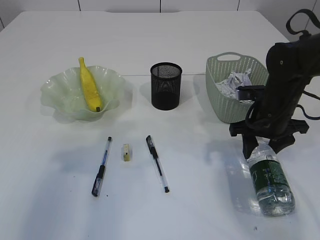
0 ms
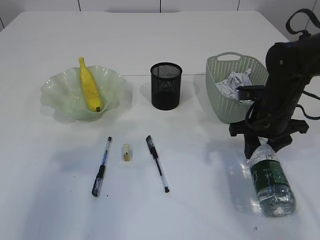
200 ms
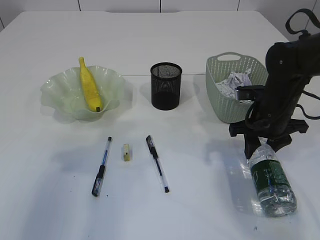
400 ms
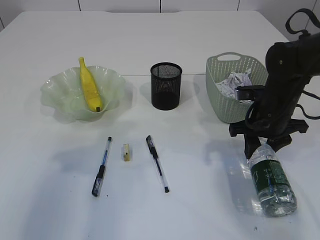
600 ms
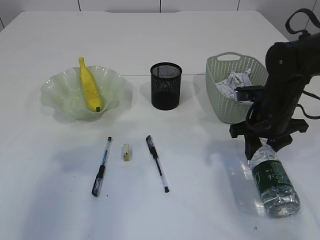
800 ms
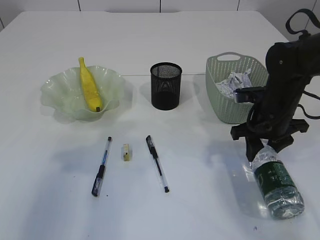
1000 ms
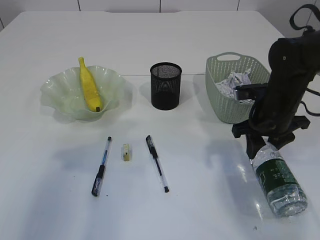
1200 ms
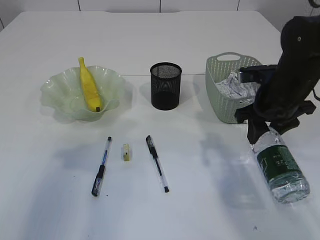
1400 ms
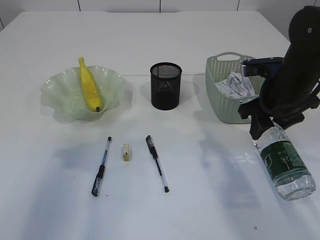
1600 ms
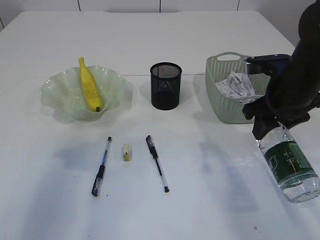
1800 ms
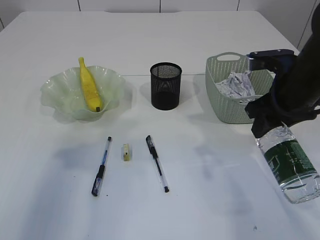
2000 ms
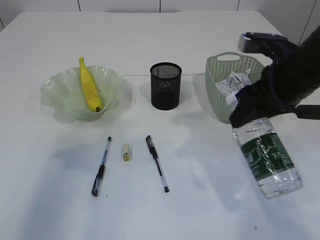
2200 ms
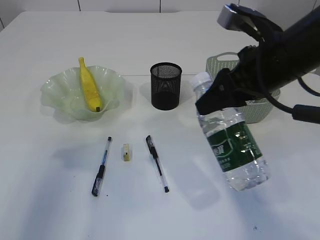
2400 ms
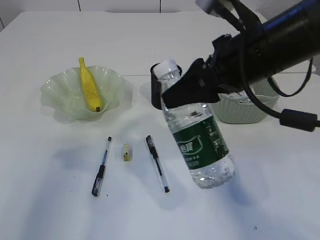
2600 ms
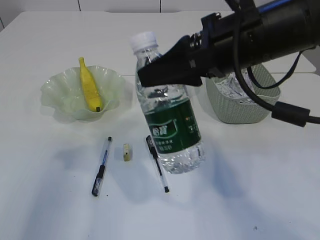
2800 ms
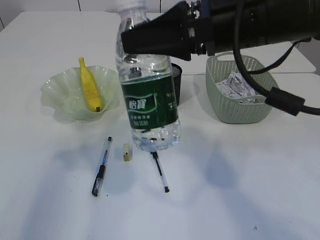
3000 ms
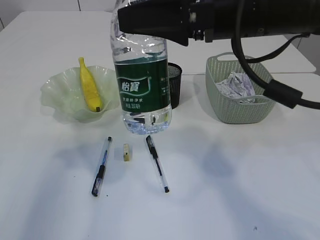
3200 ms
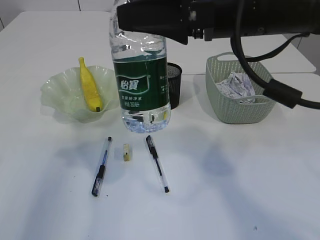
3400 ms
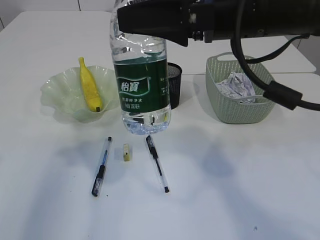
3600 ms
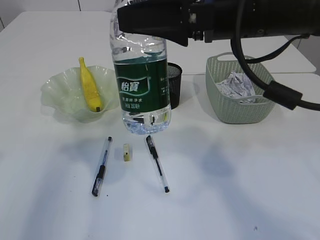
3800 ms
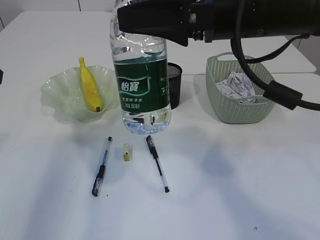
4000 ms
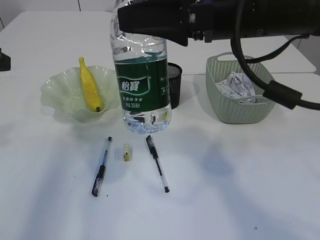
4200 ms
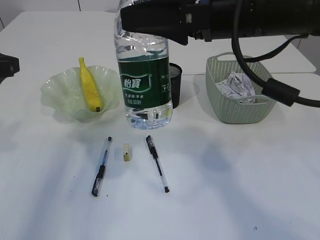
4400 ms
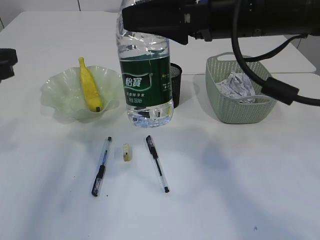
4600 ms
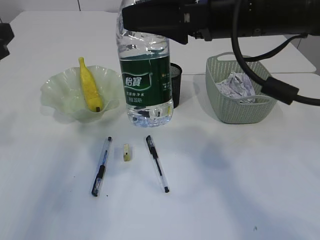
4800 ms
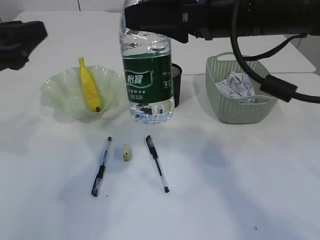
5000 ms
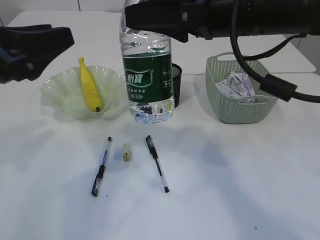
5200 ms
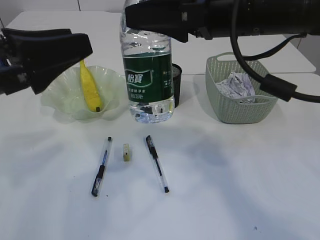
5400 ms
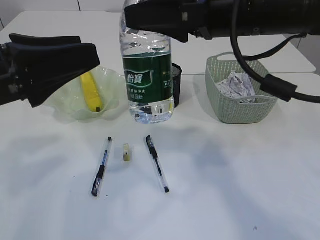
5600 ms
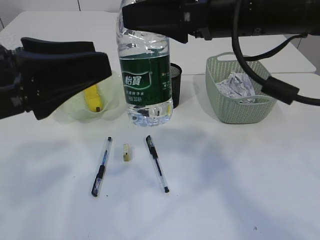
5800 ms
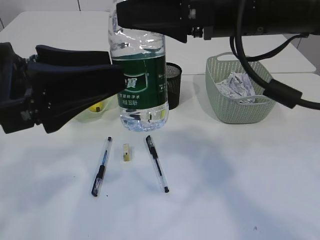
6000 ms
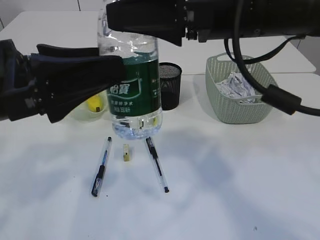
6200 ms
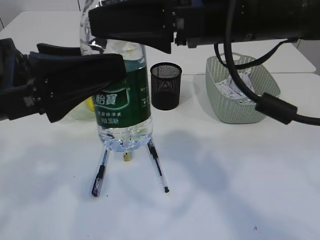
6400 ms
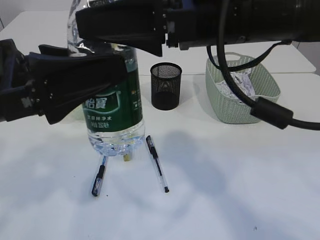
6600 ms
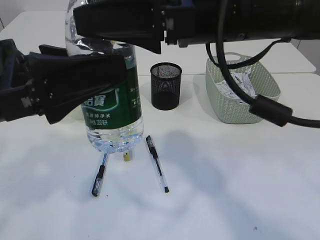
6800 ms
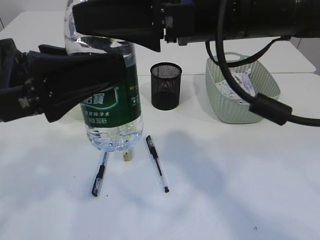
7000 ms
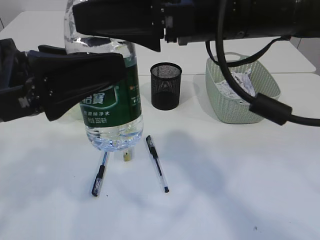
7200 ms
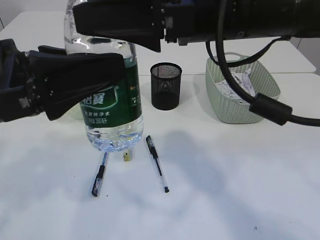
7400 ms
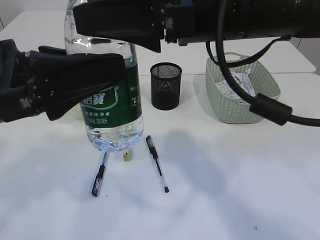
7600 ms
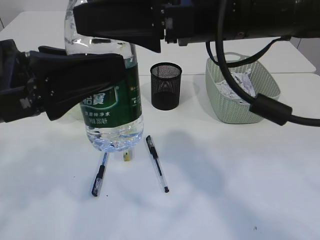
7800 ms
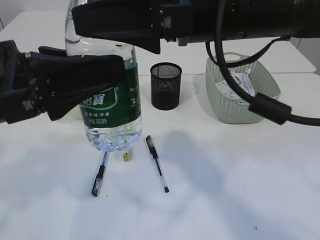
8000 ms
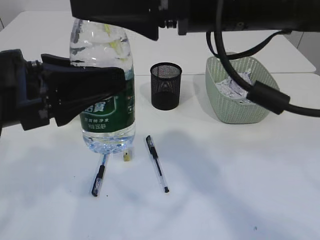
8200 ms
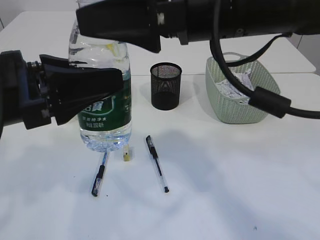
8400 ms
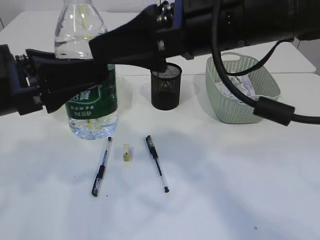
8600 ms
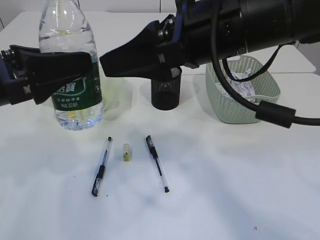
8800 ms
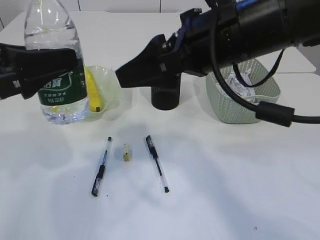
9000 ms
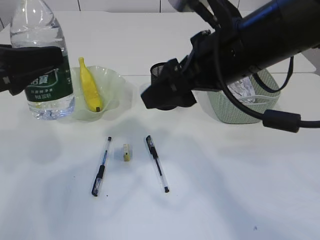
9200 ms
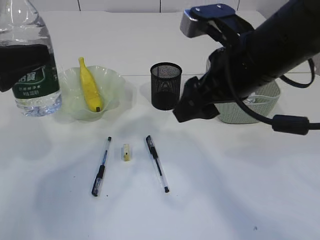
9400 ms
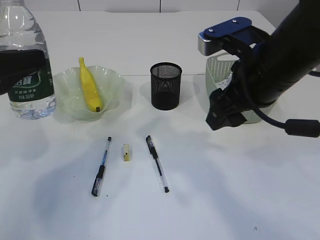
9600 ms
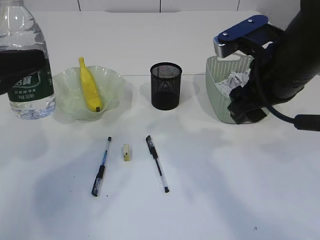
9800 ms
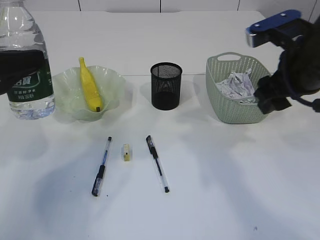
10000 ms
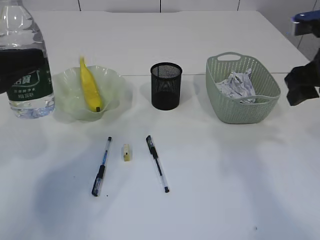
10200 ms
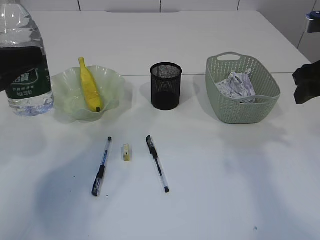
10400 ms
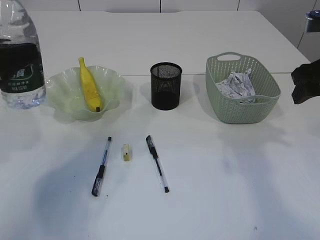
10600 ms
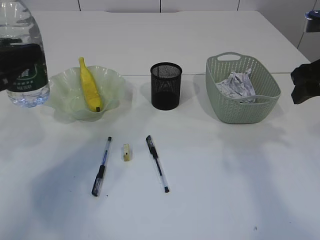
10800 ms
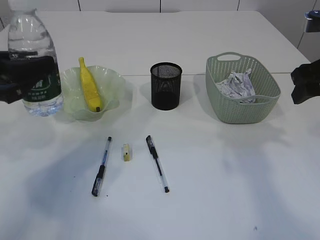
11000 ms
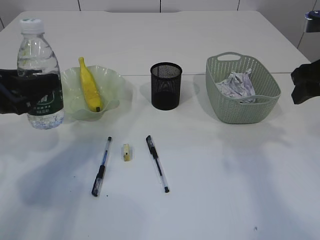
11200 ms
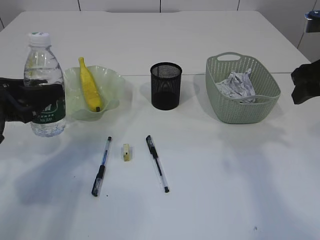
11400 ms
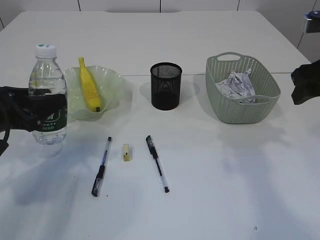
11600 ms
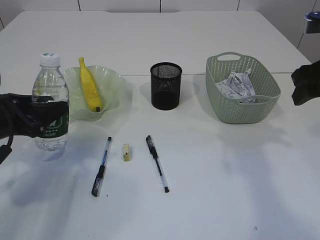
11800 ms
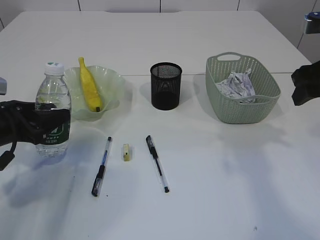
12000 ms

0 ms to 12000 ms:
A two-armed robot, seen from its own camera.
Step, 2000 ms to 8600 ms: transfer the bottle to the left arm.
0 ms to 1600 ms: The right gripper travels upward by roughly 5 cm.
1600 ms to 3000 ms: The right gripper heads upward, to the left and backward, covering some 20 cm.
4400 ms to 6000 ms: The left gripper is displaced to the right and backward by roughly 10 cm, and opens up.
6000 ms to 7600 ms: The left gripper closes.
7600 ms to 9000 ms: The left gripper is displaced to the left by approximately 5 cm. Meanwhile the right gripper opens up.
9000 ms to 10400 ms: The left gripper shifts by approximately 5 cm. The right gripper is displaced to the right by roughly 20 cm.
10400 ms to 12000 ms: The left gripper shifts about 15 cm downward and forward.

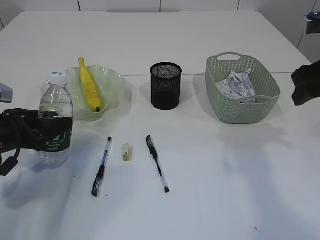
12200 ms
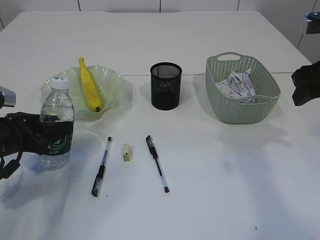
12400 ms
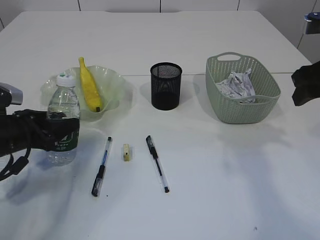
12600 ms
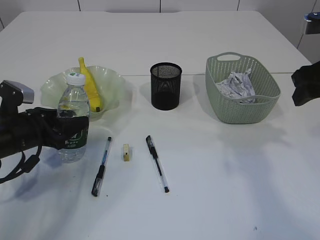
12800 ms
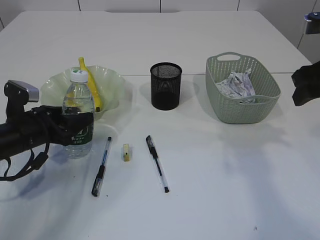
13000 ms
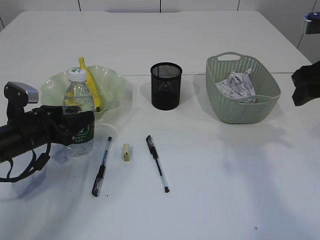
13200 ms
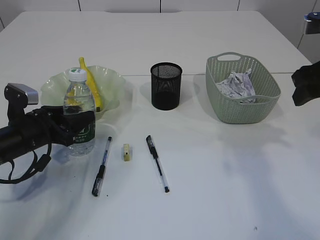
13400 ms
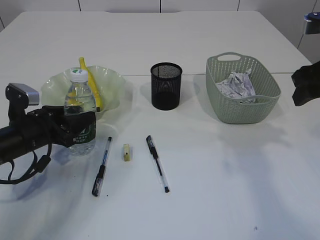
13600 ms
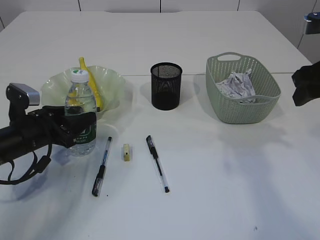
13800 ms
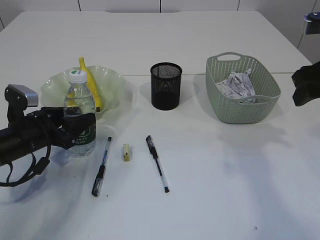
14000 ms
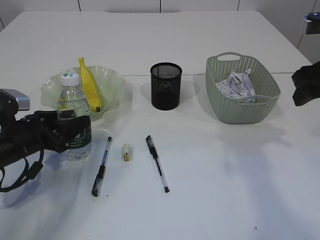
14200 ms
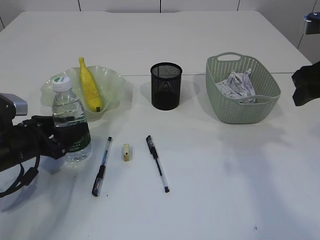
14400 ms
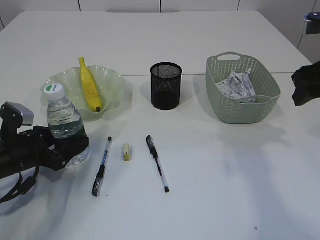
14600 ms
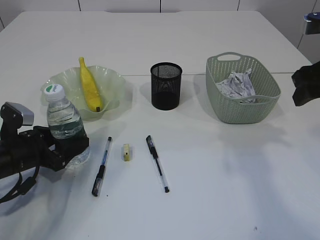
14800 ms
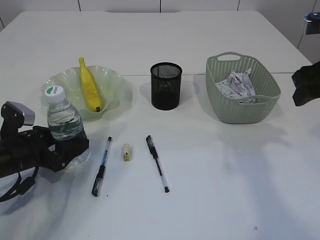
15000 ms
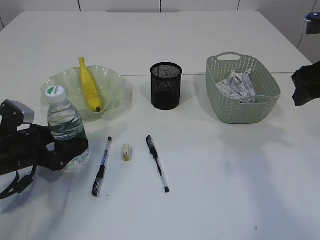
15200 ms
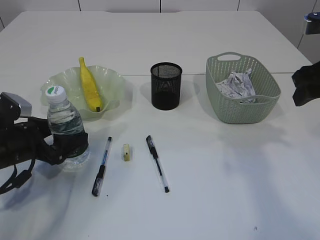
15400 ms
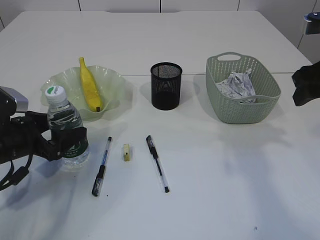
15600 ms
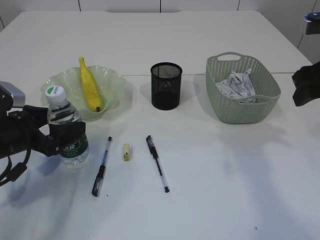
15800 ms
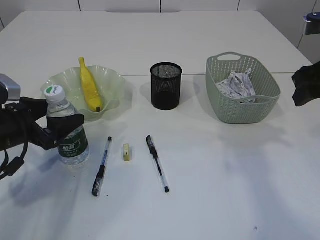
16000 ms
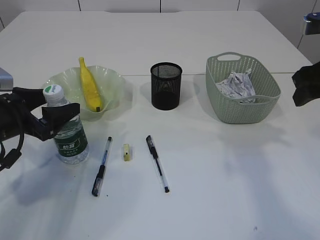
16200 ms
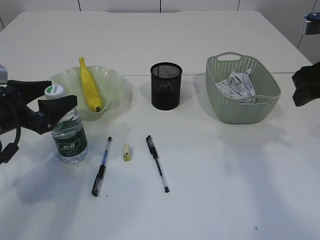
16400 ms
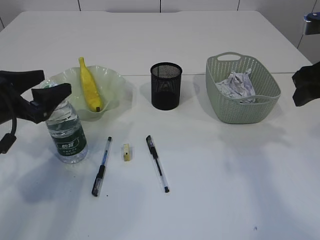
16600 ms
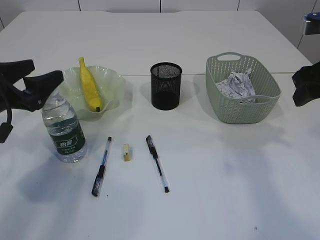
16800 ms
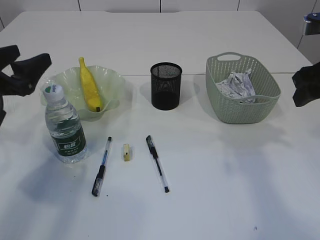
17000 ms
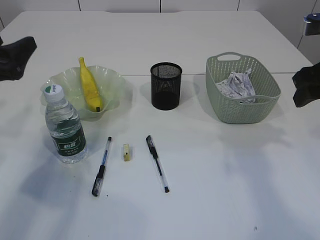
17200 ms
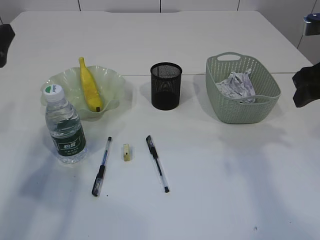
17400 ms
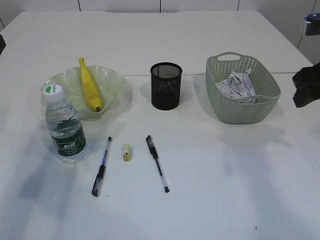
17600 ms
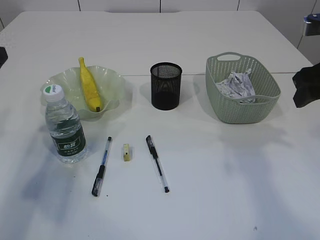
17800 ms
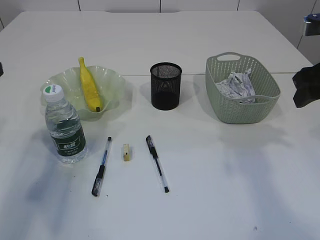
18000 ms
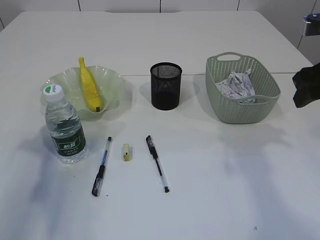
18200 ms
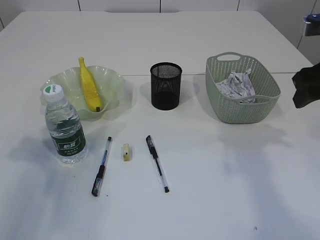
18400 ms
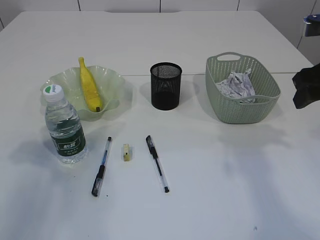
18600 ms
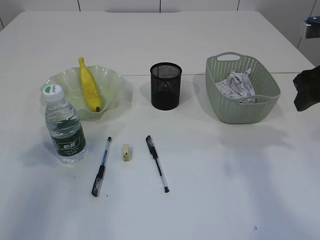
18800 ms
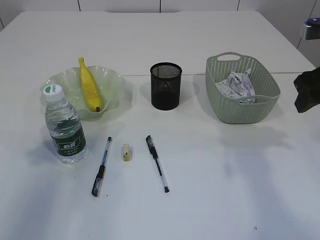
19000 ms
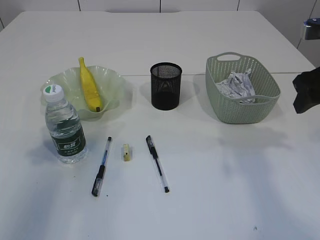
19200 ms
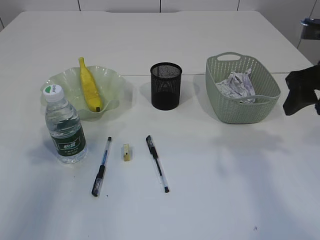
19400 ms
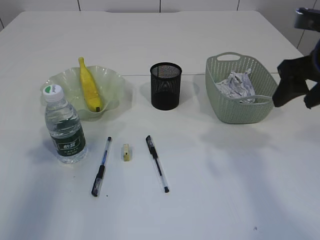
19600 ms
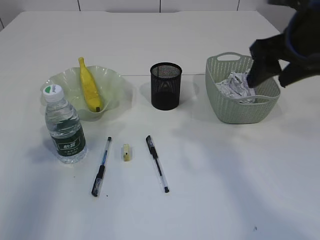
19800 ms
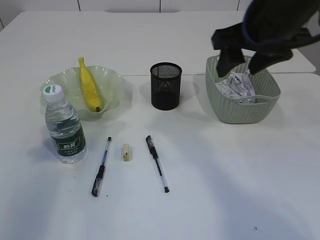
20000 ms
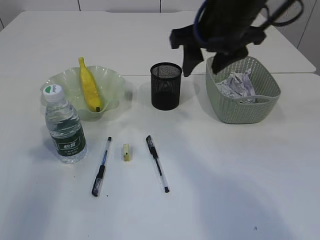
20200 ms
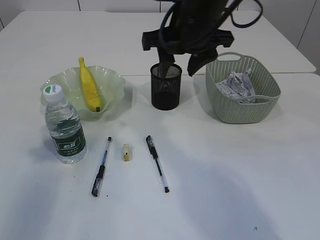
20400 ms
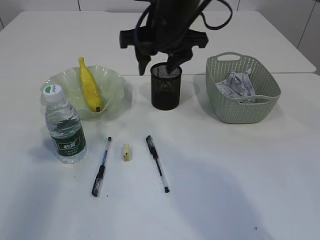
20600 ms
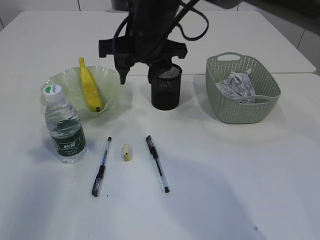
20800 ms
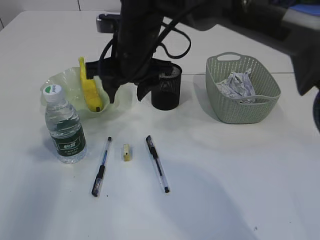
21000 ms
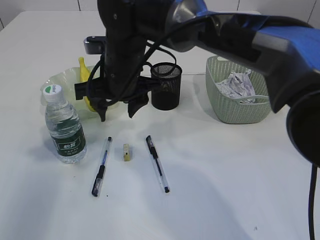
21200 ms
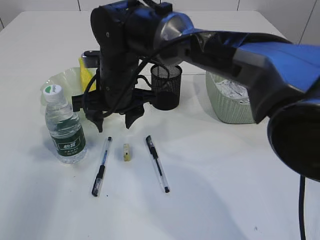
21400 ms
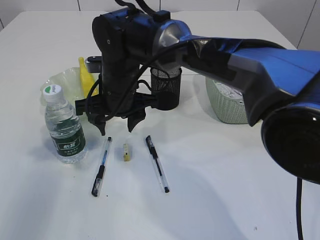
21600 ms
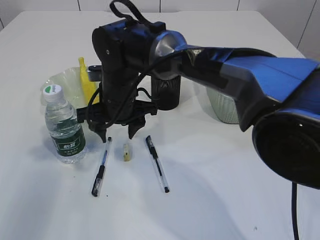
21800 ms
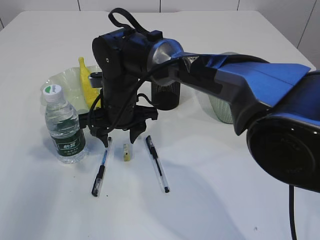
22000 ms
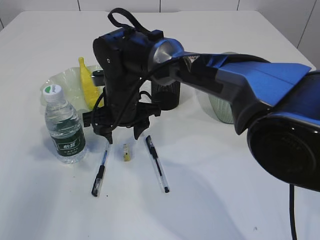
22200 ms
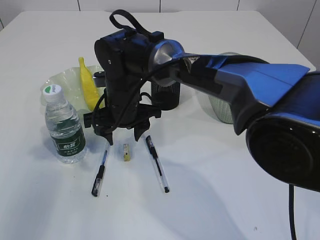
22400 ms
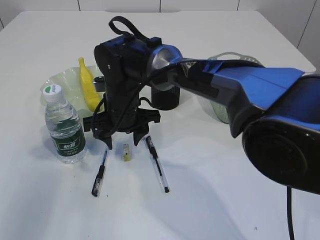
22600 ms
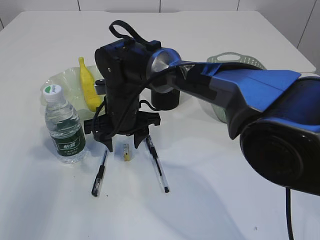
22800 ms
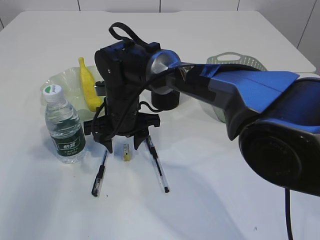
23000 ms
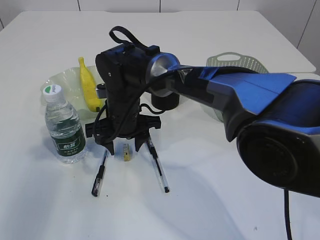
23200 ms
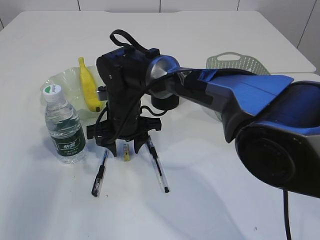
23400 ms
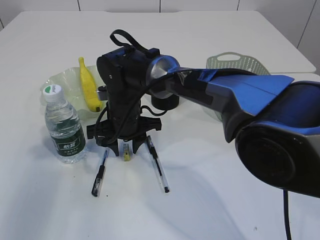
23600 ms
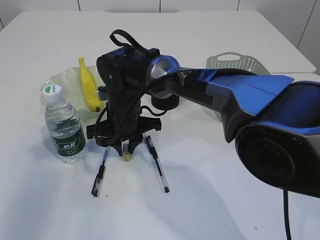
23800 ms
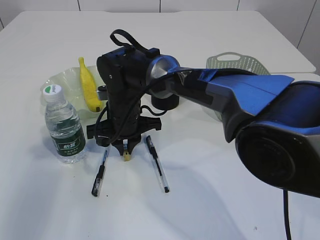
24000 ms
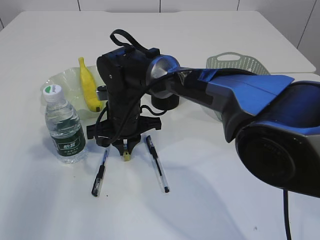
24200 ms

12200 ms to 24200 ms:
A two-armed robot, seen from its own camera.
Step, 12200 ms to 16600 ms: Place the bottle.
12200 ms to 13800 ms: The left gripper moves roughly 5 cm.
13800 ms to 15200 ms: The left gripper opens its fingers.
15200 ms to 16600 ms: The left gripper shifts roughly 10 cm upward.
16600 ms to 18200 ms: The left gripper moves upward and to the left, approximately 10 cm.
18200 ms to 19800 ms: The right gripper heads to the left, covering approximately 5 cm.
19800 ms to 21200 ms: The right gripper travels to the left by some 25 cm.
21200 ms to 22600 ms: The right gripper moves downward, some 10 cm.
22600 ms to 24200 ms: The right gripper closes up.
